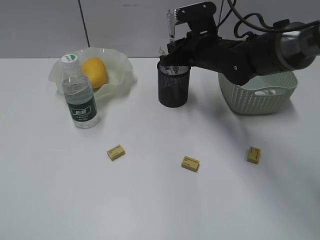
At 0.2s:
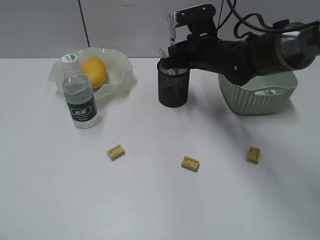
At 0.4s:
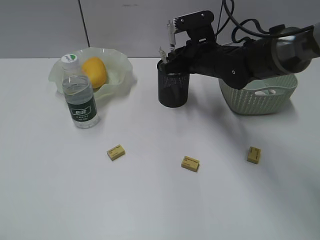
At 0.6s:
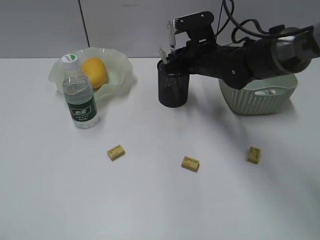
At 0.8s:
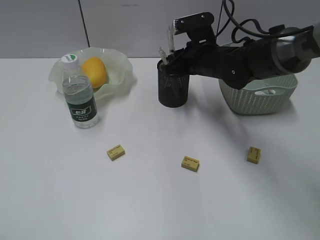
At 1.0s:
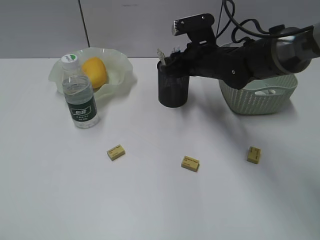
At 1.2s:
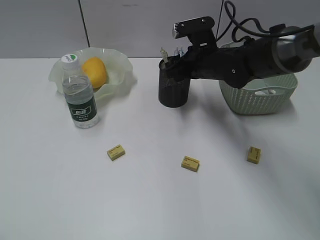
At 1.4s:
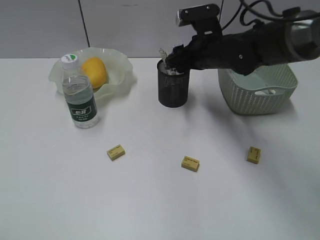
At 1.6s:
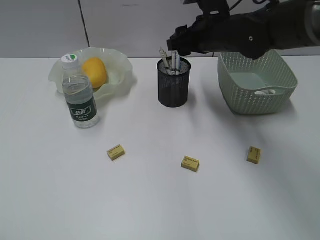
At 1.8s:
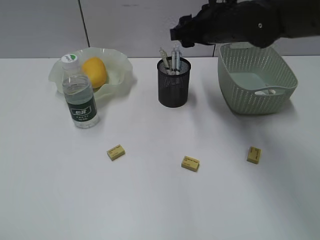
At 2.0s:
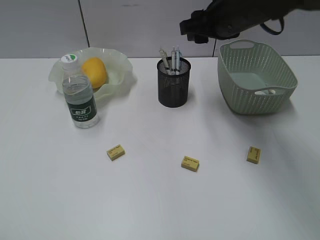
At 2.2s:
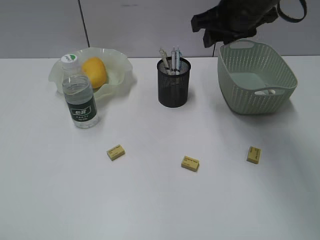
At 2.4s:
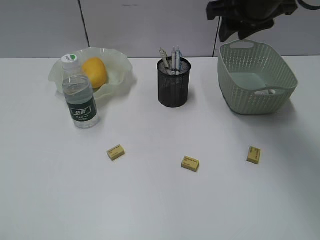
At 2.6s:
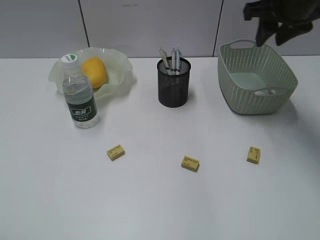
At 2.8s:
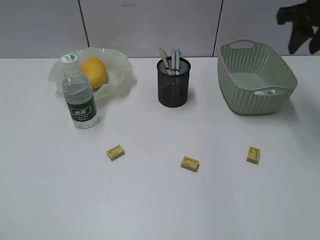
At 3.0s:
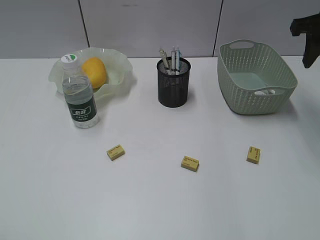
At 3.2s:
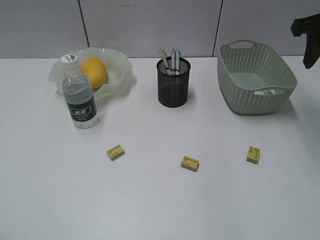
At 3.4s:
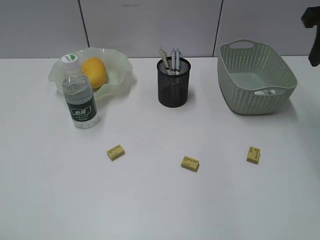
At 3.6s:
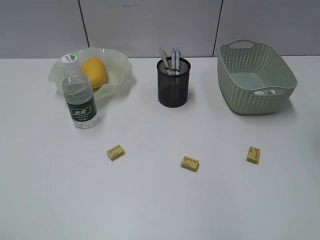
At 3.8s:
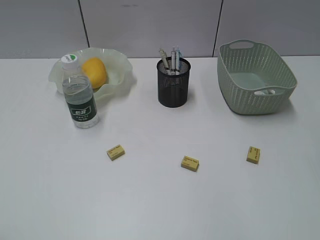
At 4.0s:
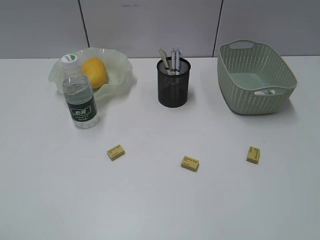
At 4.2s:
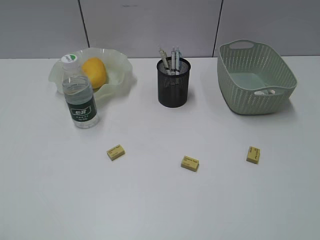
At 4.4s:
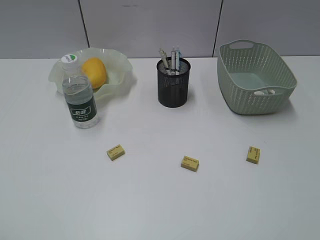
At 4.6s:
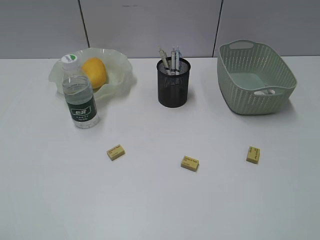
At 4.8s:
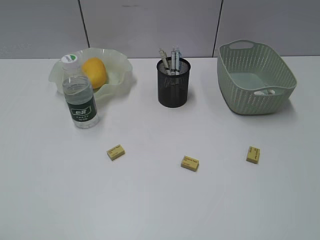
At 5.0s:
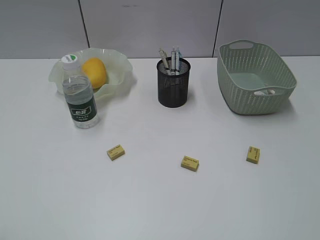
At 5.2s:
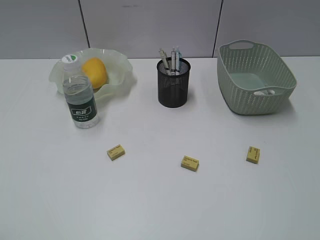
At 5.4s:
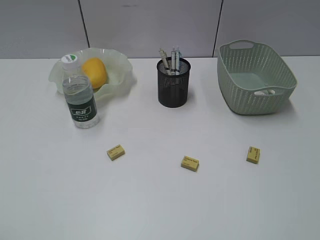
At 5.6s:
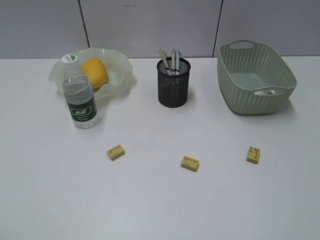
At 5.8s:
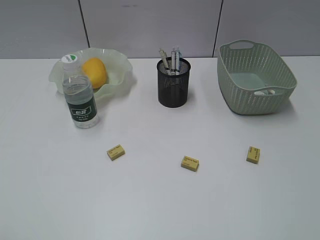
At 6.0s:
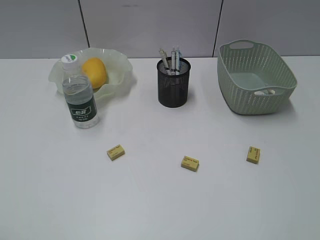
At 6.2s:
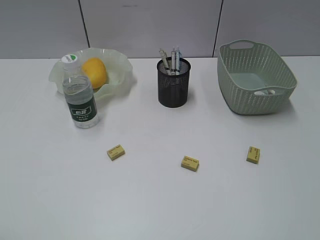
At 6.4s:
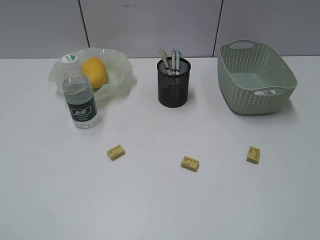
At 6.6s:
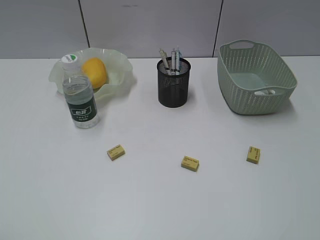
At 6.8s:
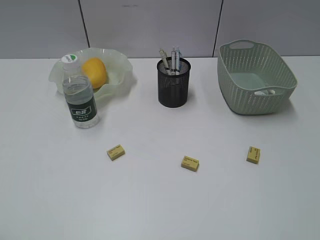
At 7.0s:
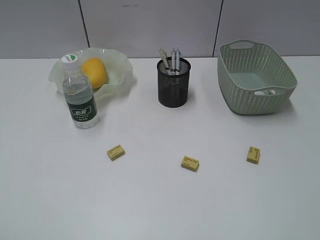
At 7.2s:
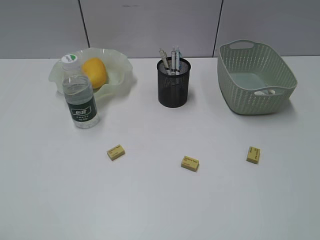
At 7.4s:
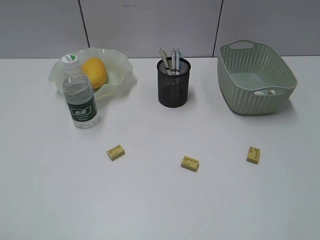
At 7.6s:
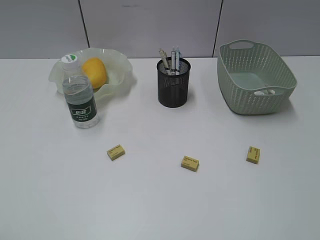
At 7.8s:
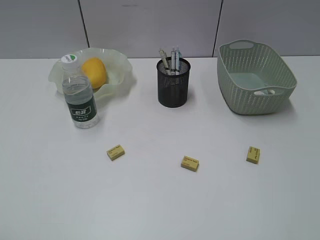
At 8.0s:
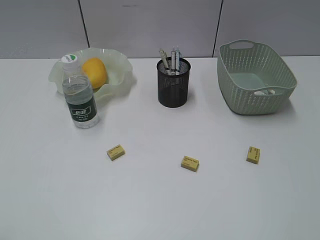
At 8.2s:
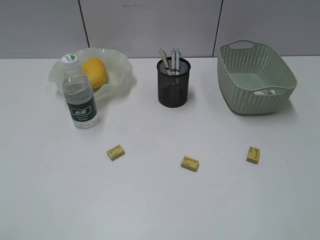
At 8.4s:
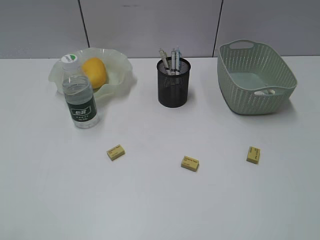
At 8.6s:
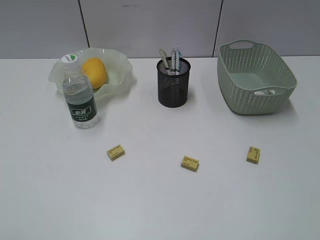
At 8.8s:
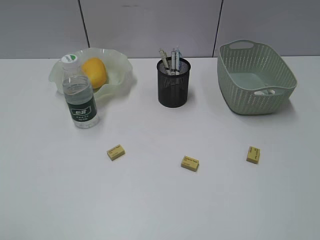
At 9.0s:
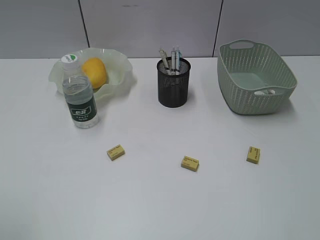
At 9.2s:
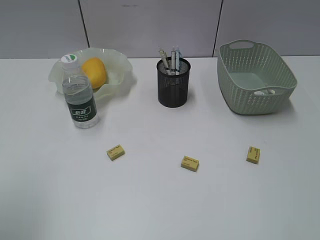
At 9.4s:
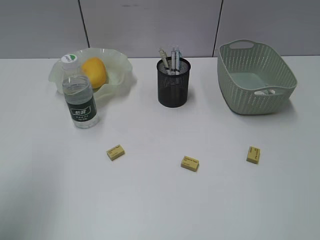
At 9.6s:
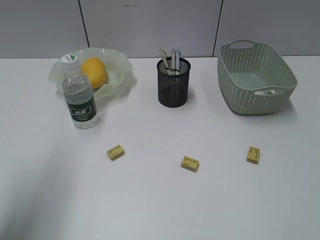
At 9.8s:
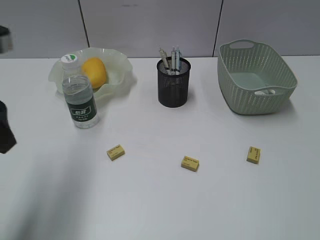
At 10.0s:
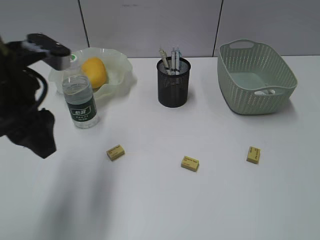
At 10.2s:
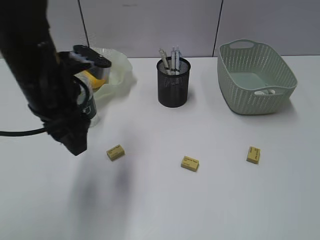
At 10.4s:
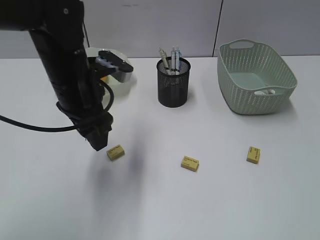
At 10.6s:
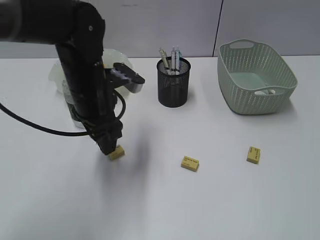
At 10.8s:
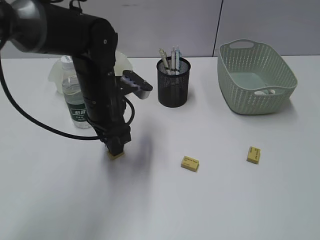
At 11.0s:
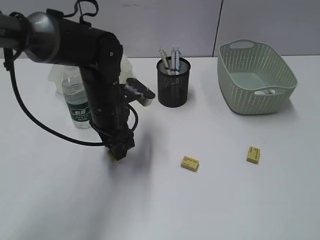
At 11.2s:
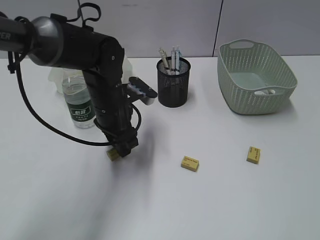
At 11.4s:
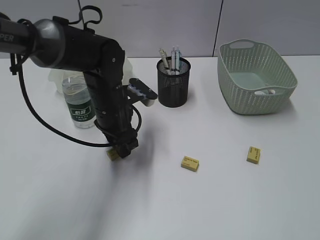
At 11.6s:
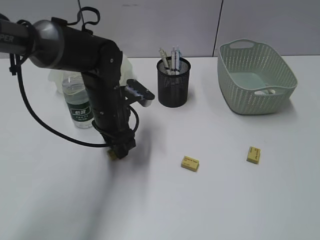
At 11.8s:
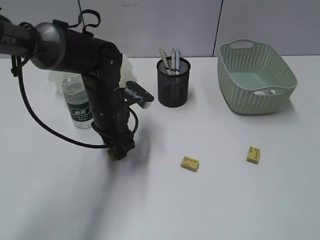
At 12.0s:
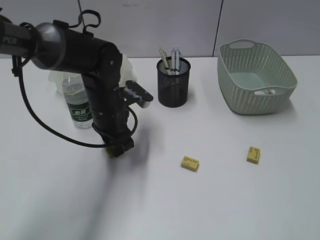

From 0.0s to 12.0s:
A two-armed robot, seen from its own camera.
From 0.0s to 1.6s: The right gripper opens its fingers.
From 1.6s to 3.0s: The right gripper goes about 20 cm to the right and upward.
From 3.0s to 4.4s: The right gripper moves backward, about 30 cm.
From 9.0s to 10.4s: The left gripper goes approximately 35 cm forward, to the right and downward.
From 10.4s to 12.0s: The left gripper is displaced downward by approximately 10 cm.

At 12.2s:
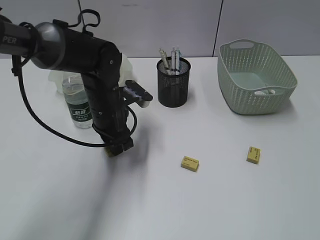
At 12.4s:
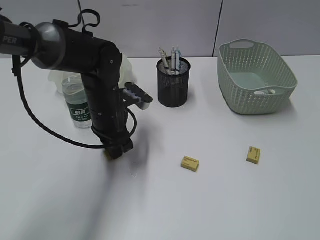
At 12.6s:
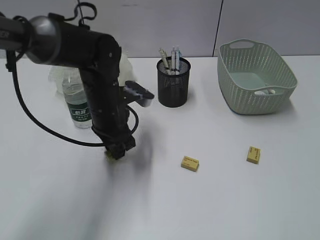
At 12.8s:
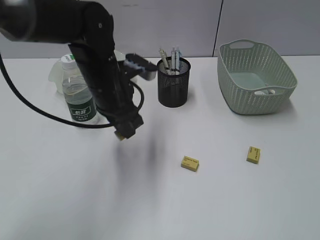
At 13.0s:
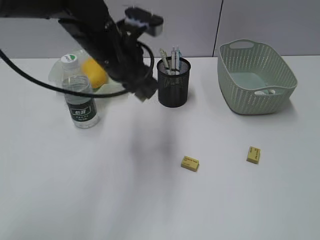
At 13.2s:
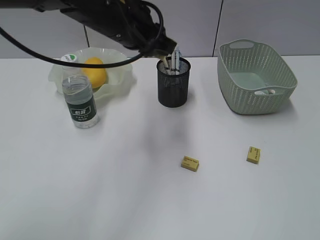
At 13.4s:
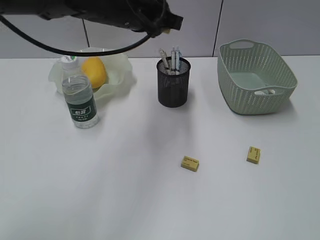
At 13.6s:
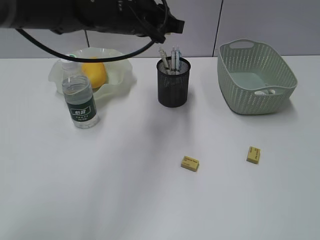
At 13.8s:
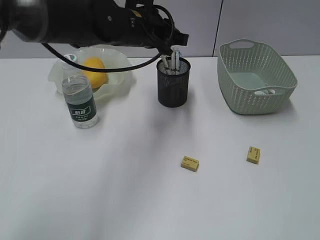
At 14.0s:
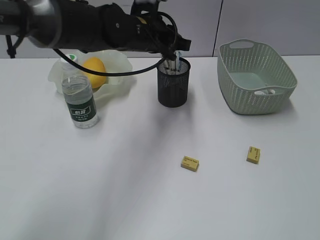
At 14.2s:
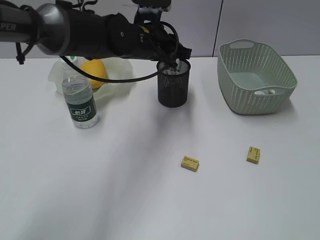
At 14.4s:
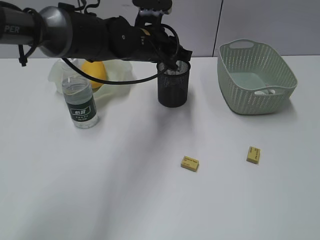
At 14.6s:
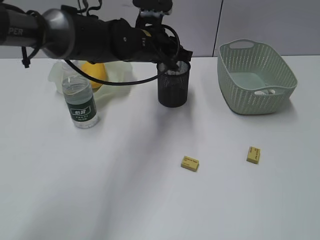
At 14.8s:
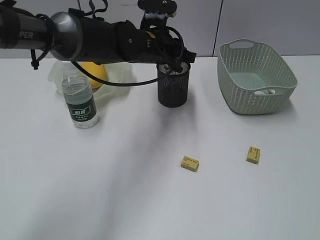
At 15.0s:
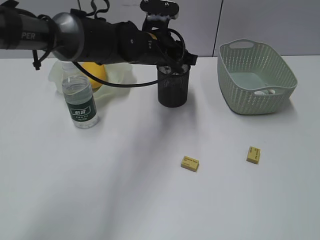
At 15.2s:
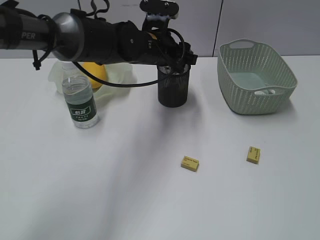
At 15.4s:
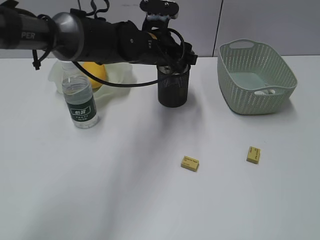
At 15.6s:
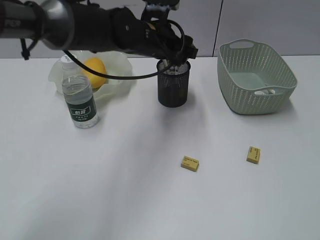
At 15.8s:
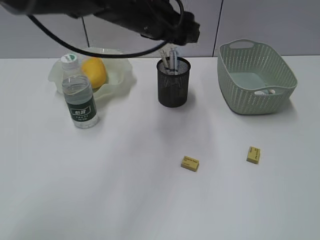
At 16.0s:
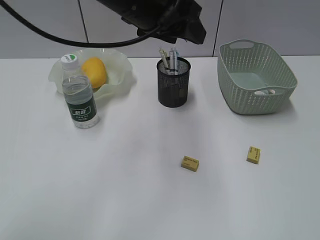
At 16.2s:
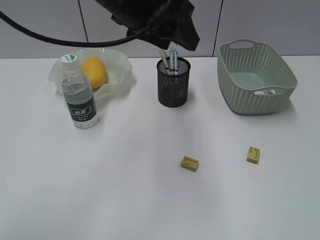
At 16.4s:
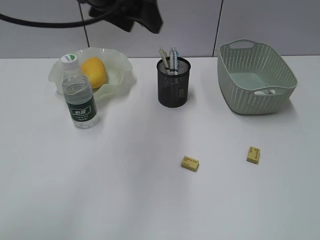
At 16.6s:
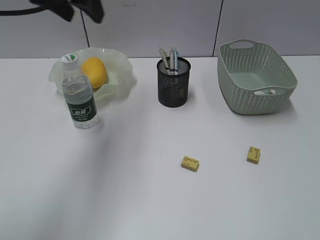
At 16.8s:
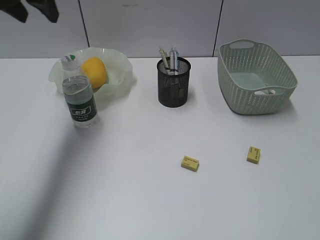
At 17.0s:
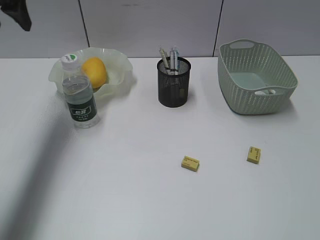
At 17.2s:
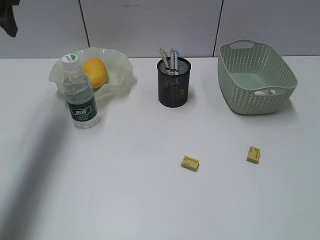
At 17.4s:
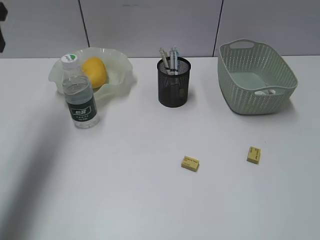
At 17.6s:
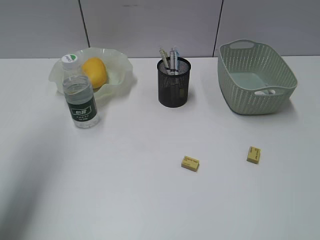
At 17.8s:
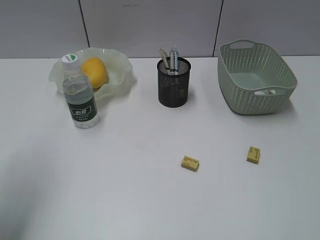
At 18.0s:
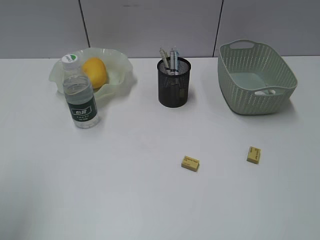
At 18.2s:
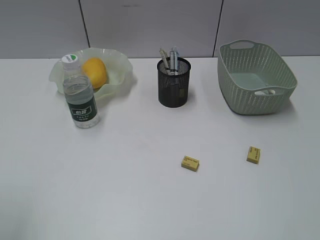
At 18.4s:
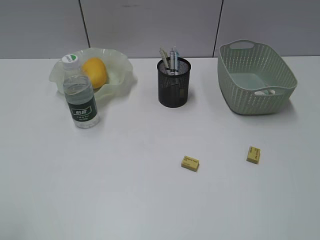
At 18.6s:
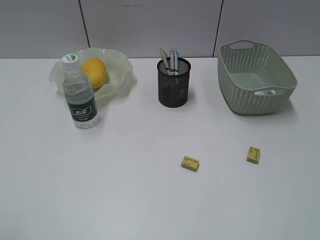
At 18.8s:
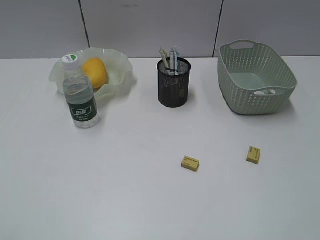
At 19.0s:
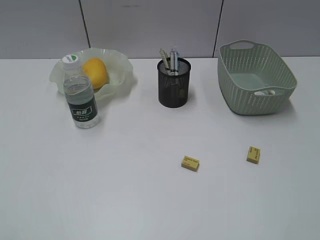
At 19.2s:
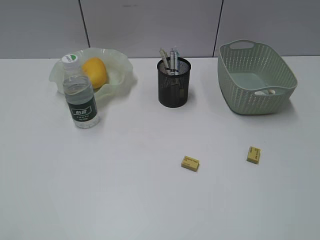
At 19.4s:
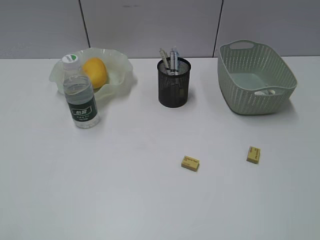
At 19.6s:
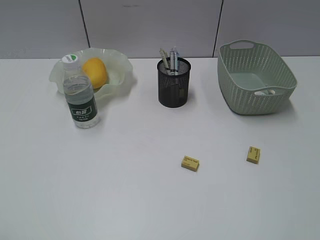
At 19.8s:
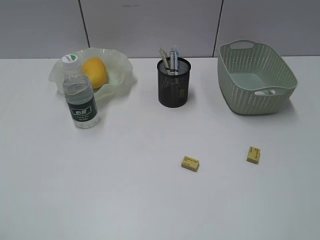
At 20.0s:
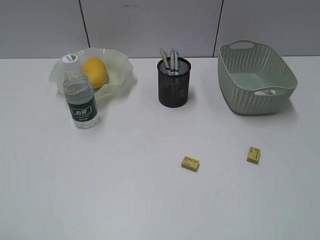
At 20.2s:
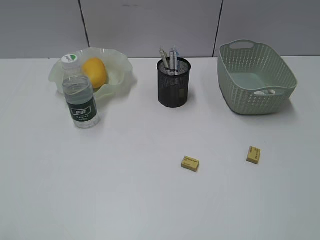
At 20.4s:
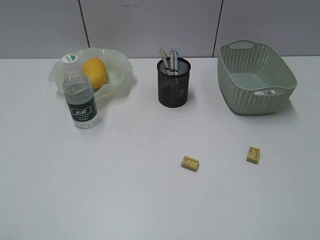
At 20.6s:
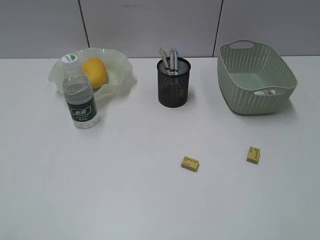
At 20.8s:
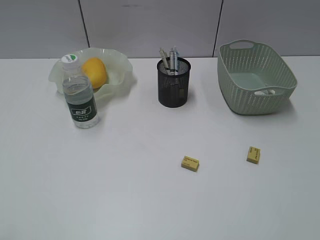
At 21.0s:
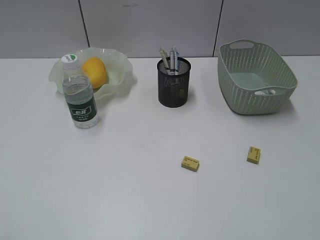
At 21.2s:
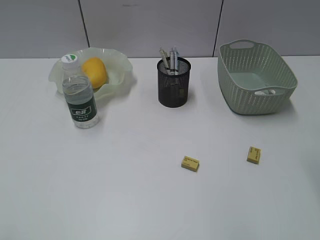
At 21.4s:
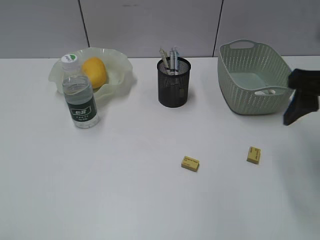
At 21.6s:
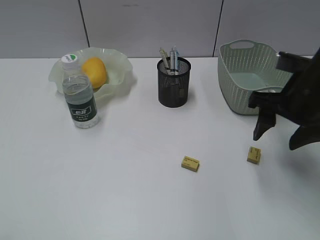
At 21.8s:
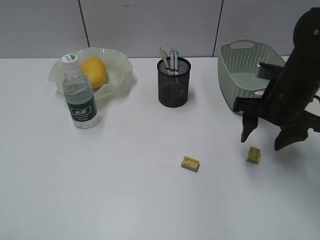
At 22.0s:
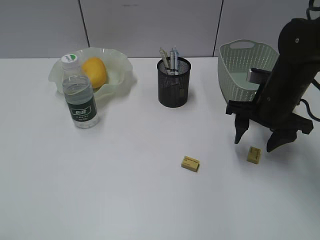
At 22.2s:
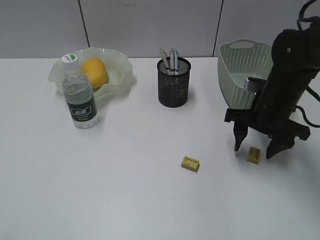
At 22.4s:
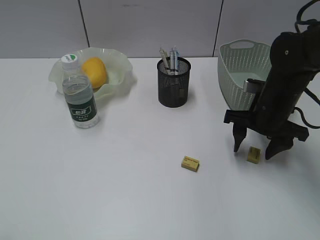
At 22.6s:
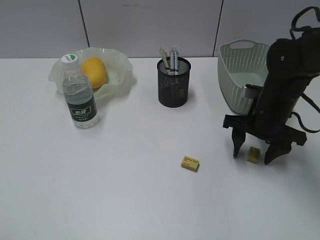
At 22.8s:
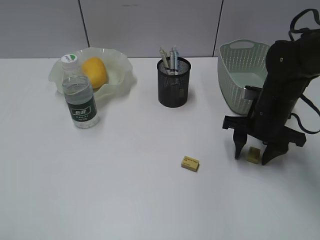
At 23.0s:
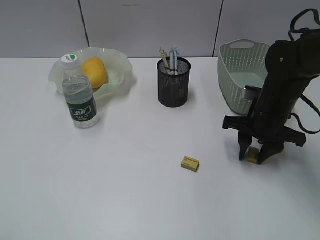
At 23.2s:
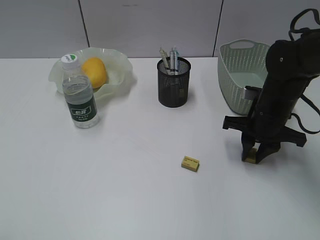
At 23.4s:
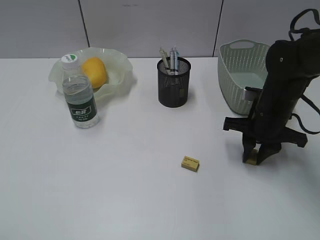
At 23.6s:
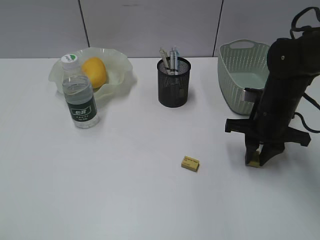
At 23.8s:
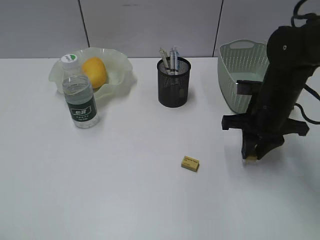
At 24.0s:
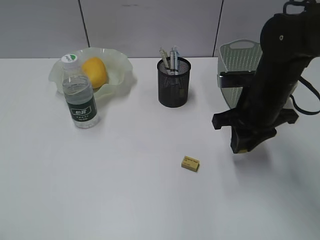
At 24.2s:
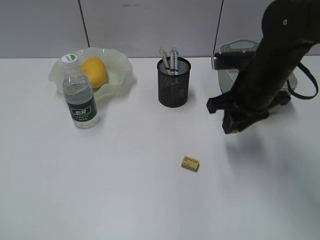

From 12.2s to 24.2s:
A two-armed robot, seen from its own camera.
Step, from 12.4s to 15.4s: Place the eraser in pen holder with left gripper.
Step, from 15.6s to 23.2s: Grasp the eraser with right gripper.
From 12.2s to 13.8s: The left gripper shifts roughly 15 cm upward and to the right.
From 13.8s to 15.2s: The left gripper ends up some 5 cm from where it was, and opens.
From 15.2s to 16.6s: The left gripper heads upward and to the left, covering roughly 20 cm.
From 16.6s to 18.2s: The left gripper moves backward and to the left, approximately 30 cm.
From 21.2s to 22.6s: The right gripper goes approximately 25 cm downward, forward and to the left.
From 22.6s to 24.2s: The right gripper travels upward by roughly 5 cm, and closes.
